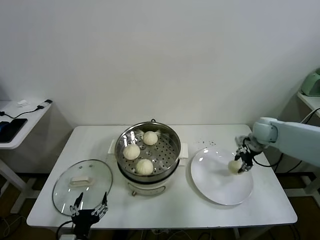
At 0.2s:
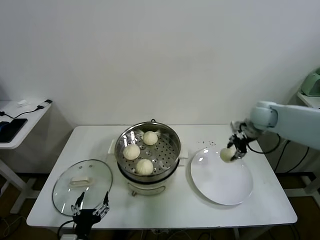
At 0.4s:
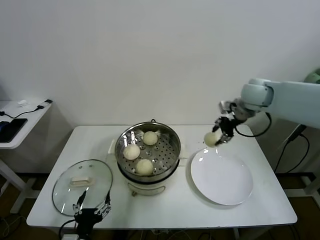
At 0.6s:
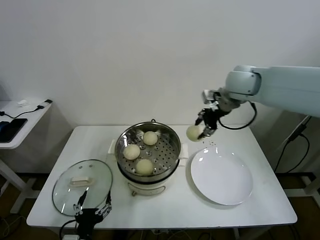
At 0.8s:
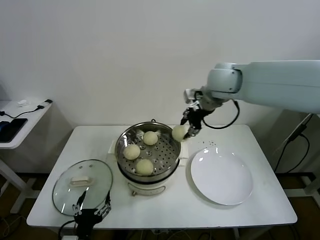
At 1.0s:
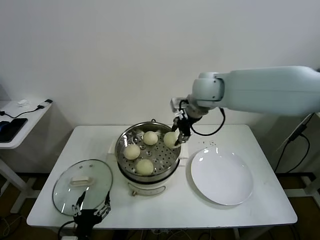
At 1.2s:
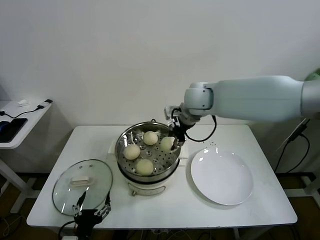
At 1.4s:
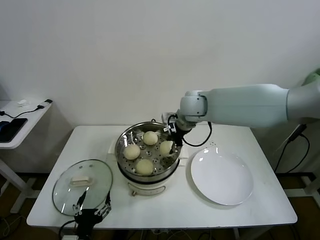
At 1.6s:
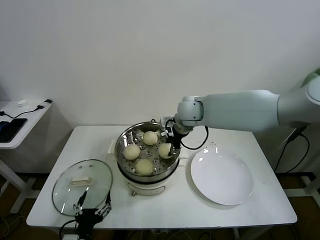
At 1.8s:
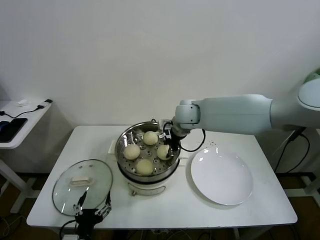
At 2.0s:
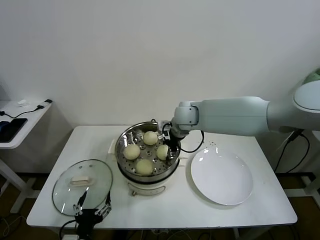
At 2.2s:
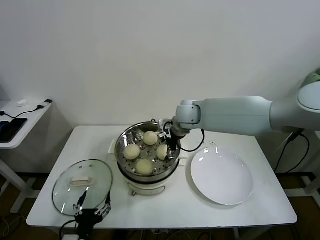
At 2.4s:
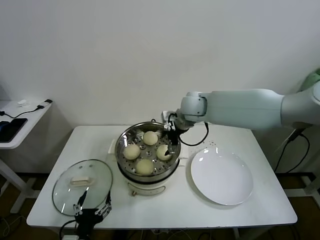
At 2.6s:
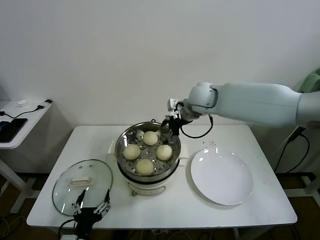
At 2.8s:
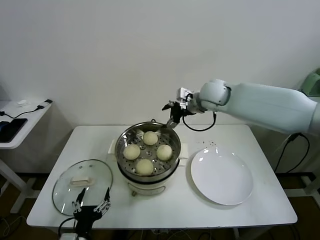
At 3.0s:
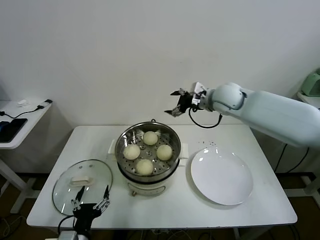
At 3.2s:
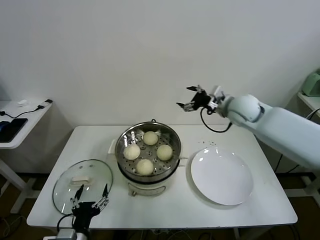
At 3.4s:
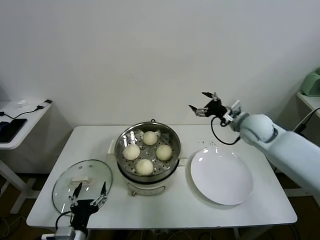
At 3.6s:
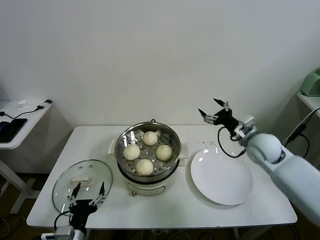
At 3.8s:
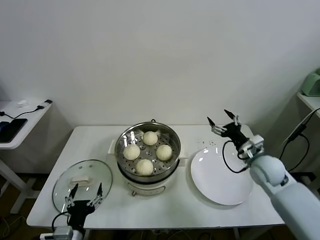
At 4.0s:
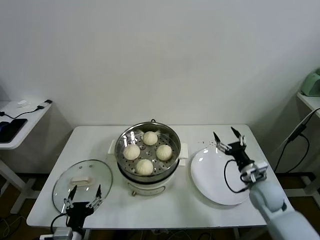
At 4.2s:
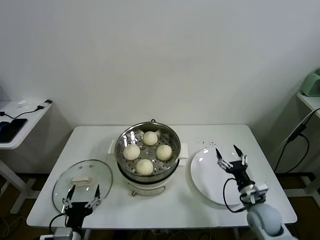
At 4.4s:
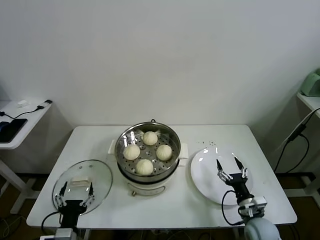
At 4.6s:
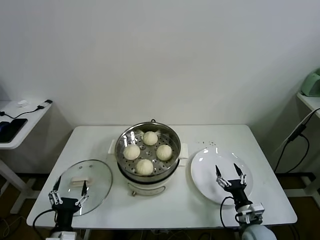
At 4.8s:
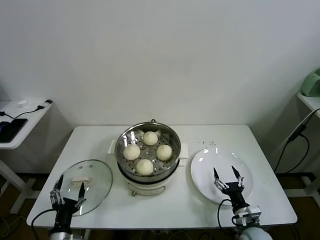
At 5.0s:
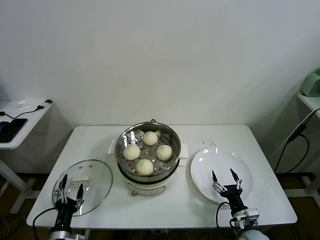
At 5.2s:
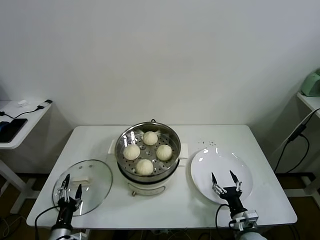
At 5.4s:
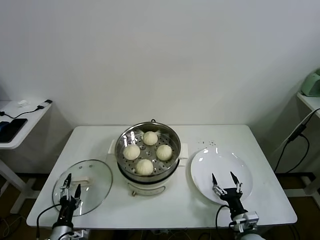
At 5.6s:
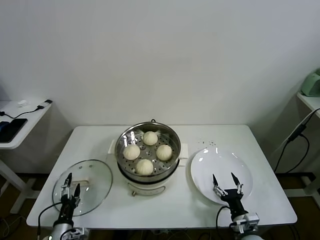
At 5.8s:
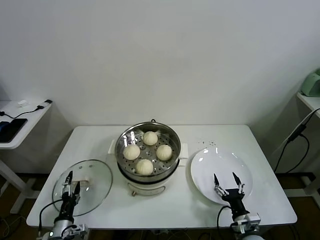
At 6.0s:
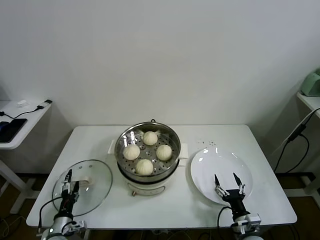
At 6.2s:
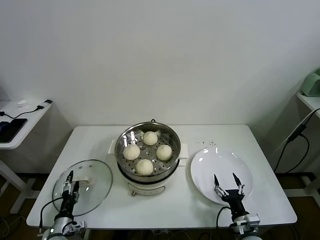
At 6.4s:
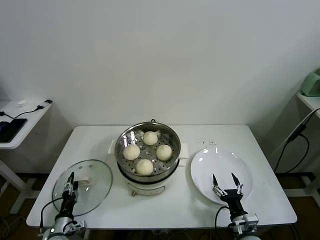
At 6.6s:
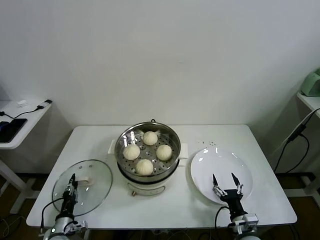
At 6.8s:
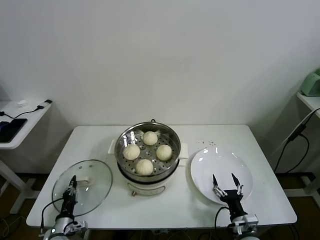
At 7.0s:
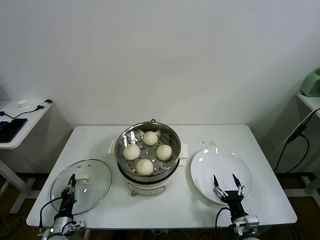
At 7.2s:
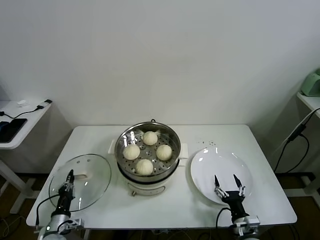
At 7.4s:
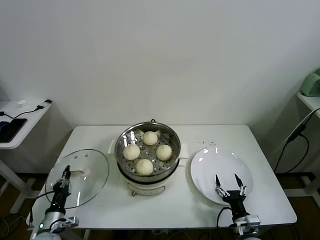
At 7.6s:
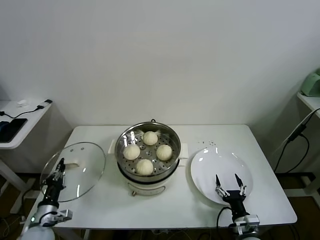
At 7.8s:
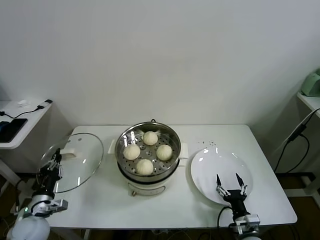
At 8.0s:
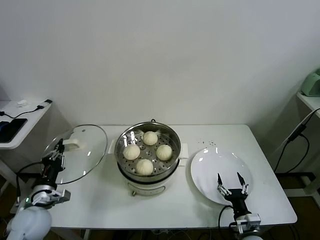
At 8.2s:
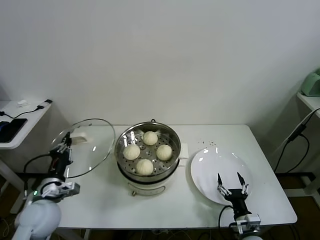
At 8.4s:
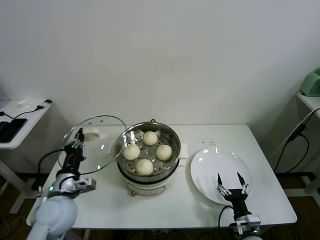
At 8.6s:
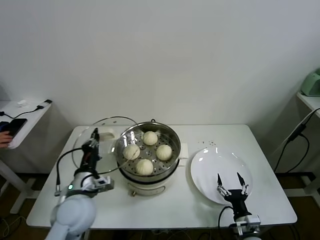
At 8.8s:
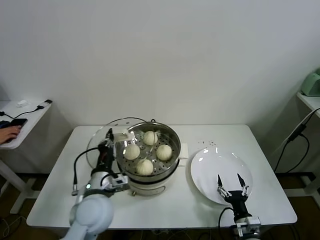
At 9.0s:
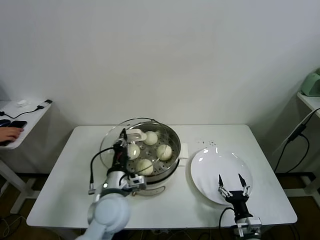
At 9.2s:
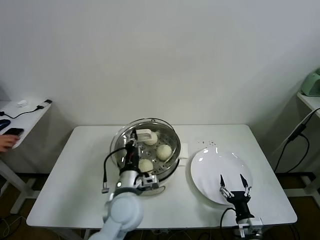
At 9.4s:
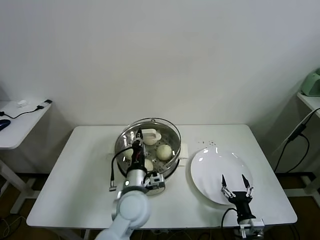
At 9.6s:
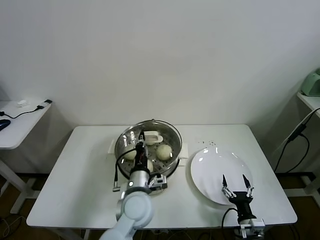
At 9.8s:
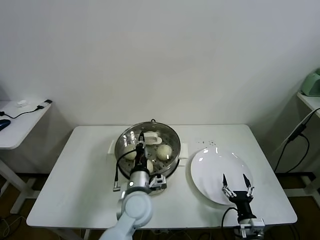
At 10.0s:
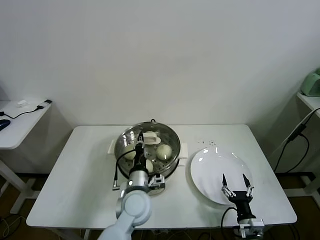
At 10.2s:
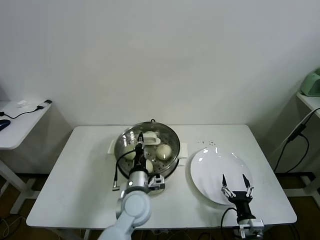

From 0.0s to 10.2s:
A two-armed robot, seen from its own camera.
Task of the whole recording: take steamed baozi put them in steamer.
Step, from 0.0s to 2.0s: Place the baozi on the steamer with right gripper.
Step, from 2.4s to 6.8s: Grasp the pot lid with left gripper.
From 0.0s to 1.4s: The right gripper shifts roughly 30 cm to the left.
From 1.4s to 3.0s: The right gripper is displaced to the right by about 10 cm, and opens up.
From 3.0s to 4.4s: The right gripper goes some 40 cm downward and backward.
From 4.4s to 5.8s: The left gripper goes some 15 cm downward, to the left and forward. Meanwhile the right gripper ends up about 5 cm from where it was.
From 5.8s to 7.2s: The left gripper closes.
From 7.2s to 8.8s: The left gripper moves upward and to the right, about 30 cm.
From 8.8s to 10.2s: The left gripper shifts roughly 10 cm to the right and downward.

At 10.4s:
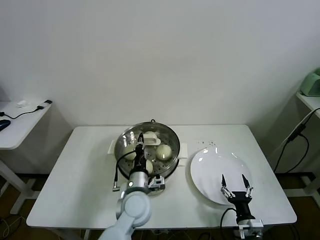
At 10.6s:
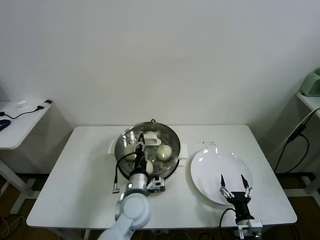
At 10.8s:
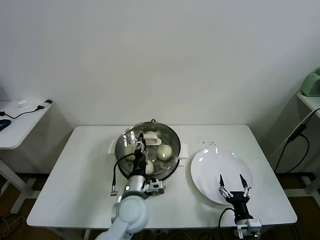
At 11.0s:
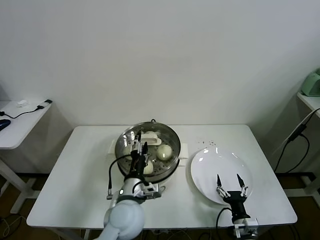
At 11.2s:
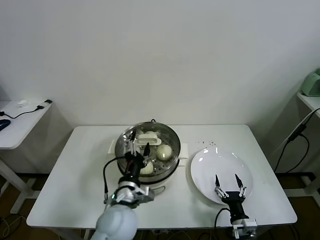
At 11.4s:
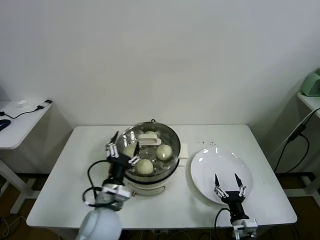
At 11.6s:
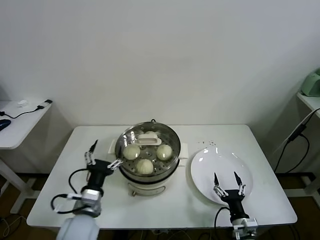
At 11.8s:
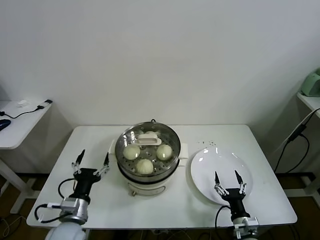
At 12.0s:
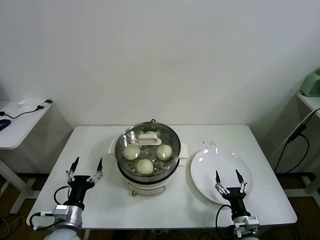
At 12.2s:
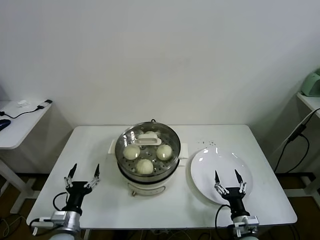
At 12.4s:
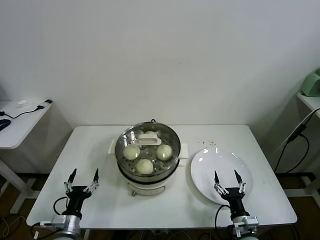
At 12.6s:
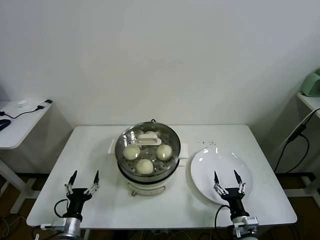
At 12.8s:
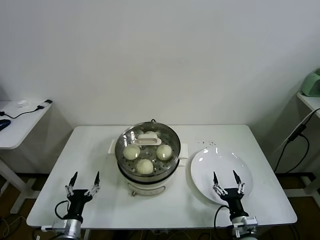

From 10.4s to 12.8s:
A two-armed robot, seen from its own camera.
Task of the whole recording: take steamed baozi put them in steamer.
From 10.4s to 11.6s: The left gripper heads to the left and backward, covering roughly 15 cm, and opens up.
From 11.6s to 12.8s: The left gripper travels downward and to the left by approximately 20 cm.

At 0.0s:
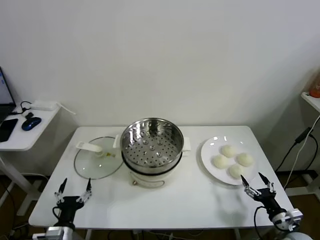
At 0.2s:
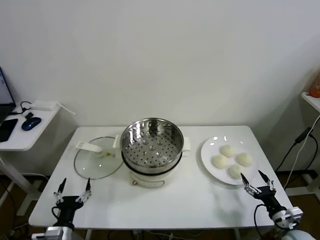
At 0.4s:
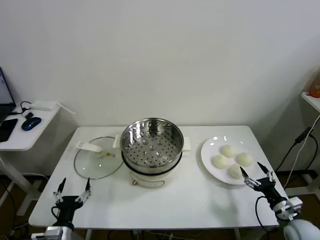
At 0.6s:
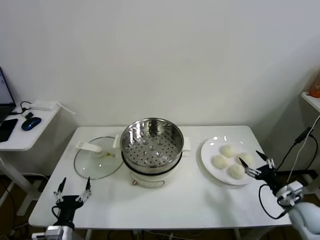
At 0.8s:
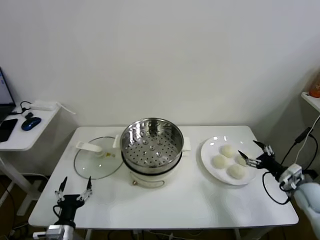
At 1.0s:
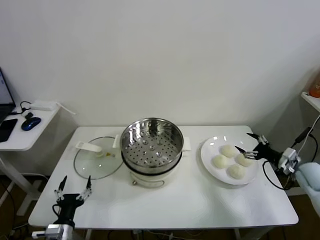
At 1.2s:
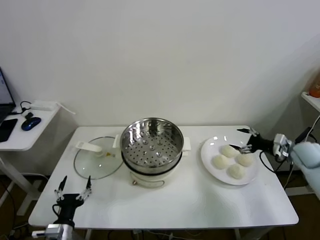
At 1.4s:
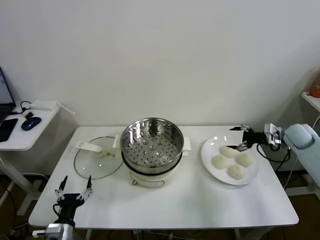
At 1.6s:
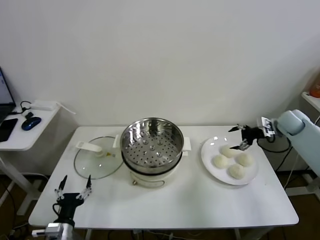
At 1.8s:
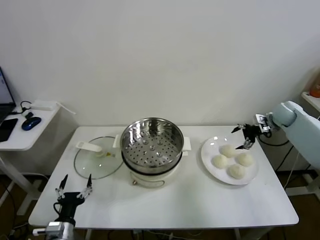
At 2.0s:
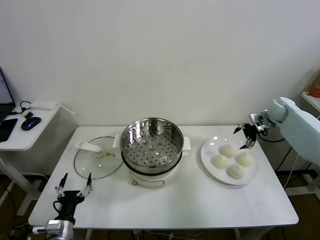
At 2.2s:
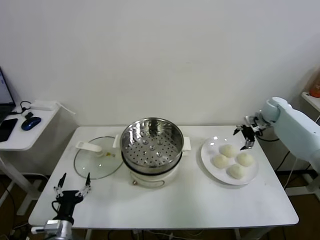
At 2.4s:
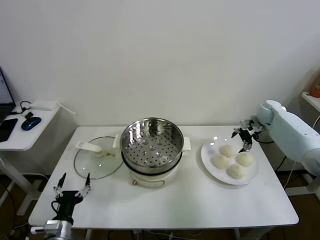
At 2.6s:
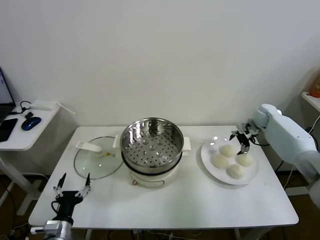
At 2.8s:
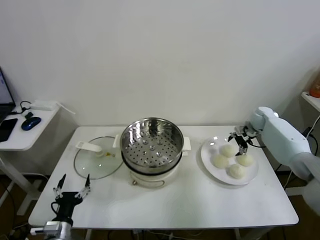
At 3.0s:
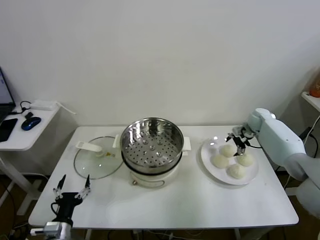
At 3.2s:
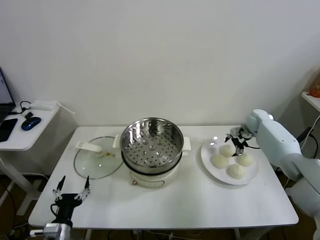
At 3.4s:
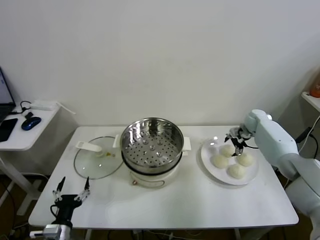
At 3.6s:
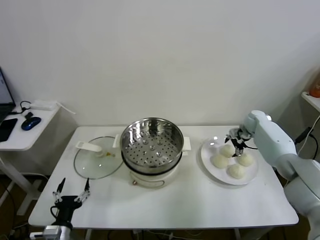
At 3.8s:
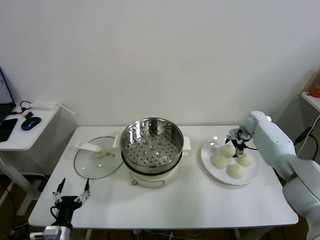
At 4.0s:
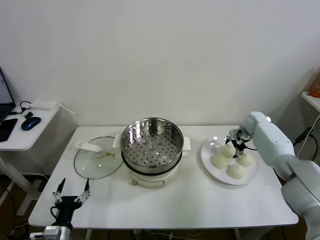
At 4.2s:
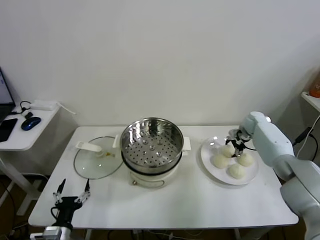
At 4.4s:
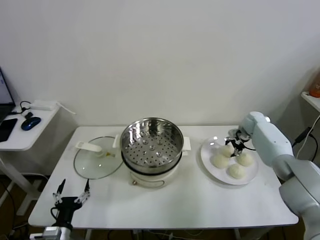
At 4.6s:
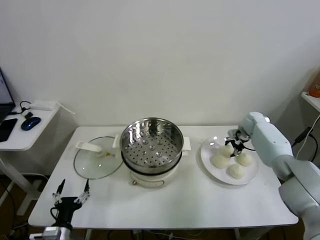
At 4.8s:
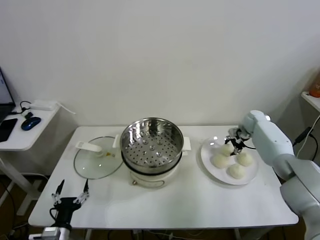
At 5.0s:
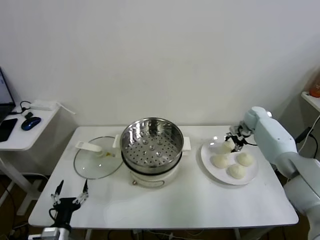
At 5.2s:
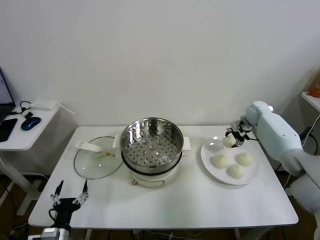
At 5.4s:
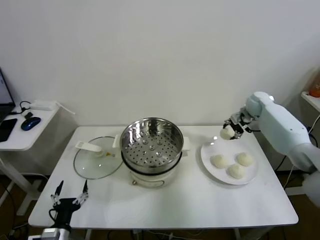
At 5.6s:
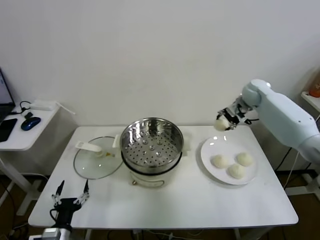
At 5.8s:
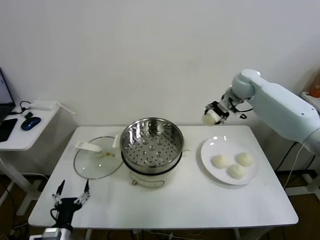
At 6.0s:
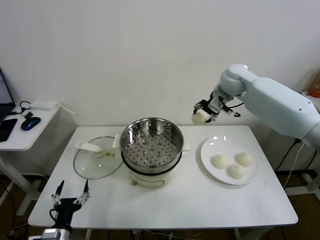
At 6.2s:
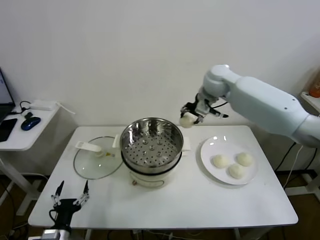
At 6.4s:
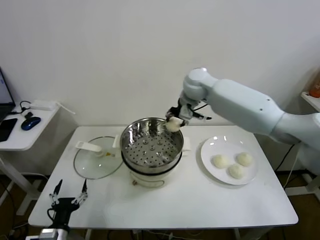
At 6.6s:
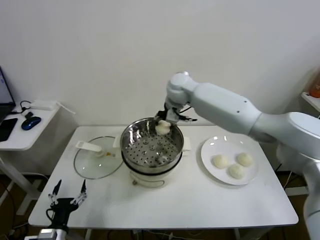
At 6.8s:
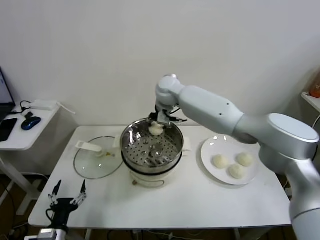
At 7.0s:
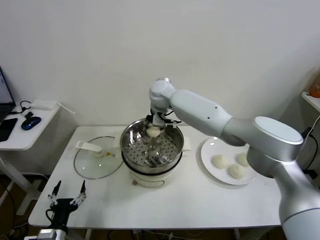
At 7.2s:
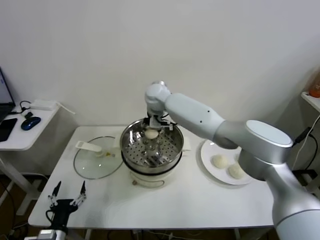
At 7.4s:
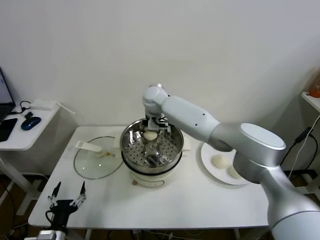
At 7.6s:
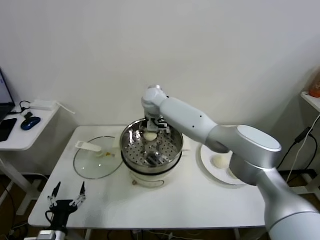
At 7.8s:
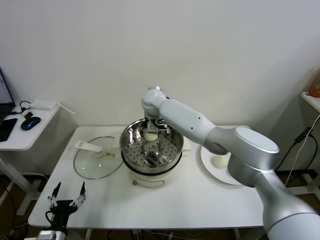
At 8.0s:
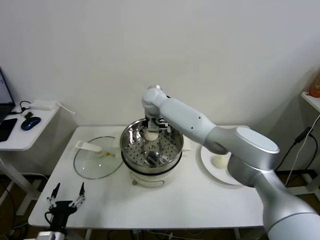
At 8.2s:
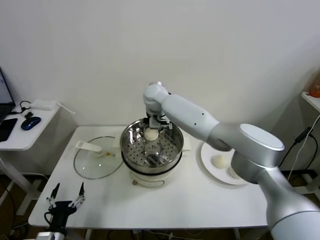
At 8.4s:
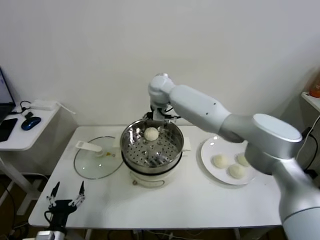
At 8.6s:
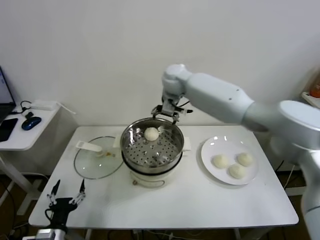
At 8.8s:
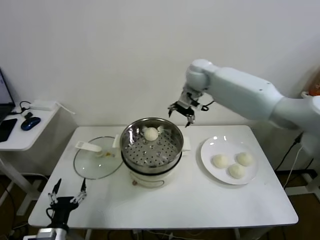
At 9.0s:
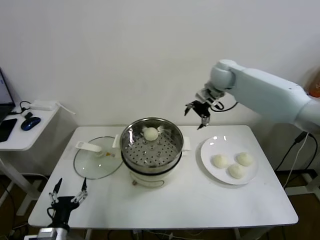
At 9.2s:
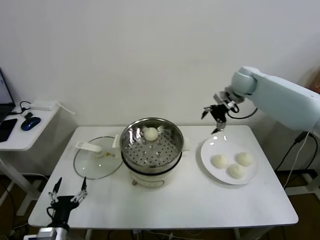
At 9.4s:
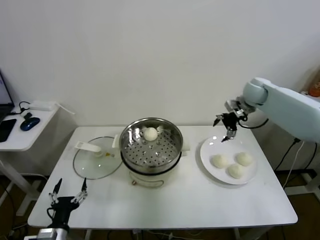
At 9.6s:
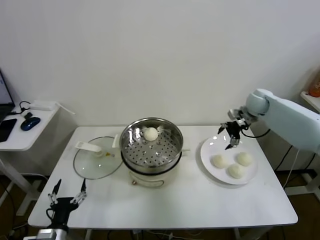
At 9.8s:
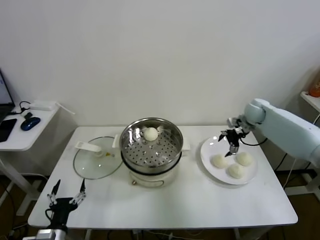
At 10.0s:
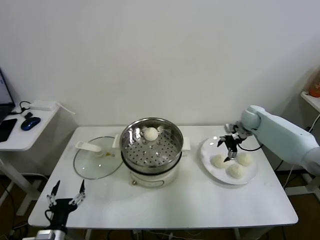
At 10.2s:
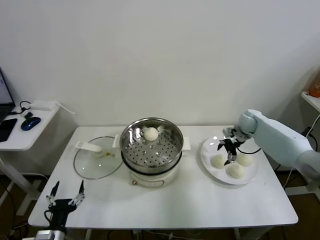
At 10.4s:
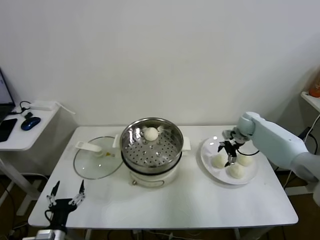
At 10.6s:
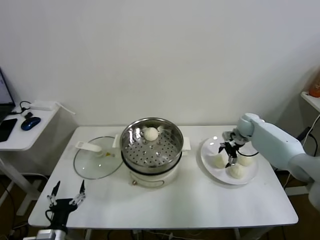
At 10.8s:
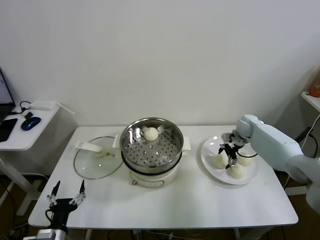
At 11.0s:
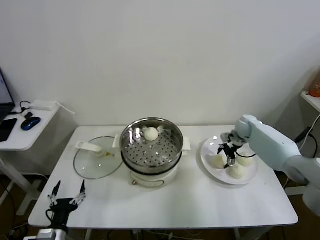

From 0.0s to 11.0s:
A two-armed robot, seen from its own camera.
Task of the whole recording: take steamed baozi put them in steamer.
Step, from 0.0s to 4.4s: Grasp the baozi in the plate with right gripper.
Step, from 4.8s to 8.2s: Place the baozi on the steamer with right gripper.
From 1.6s to 3.2s: The right gripper travels forward, to the left and downward by about 15 cm.
From 3.2s to 4.8s: The right gripper closes.
From 4.8s to 6.2s: The right gripper is displaced upward and to the left by roughly 30 cm.
From 6.2s to 7.8s: The right gripper moves to the left and downward, about 25 cm, and opens.
From 7.8s to 9.4s: The right gripper is displaced to the right by approximately 35 cm.
From 9.4s to 11.0s: The right gripper shifts some 20 cm downward.
